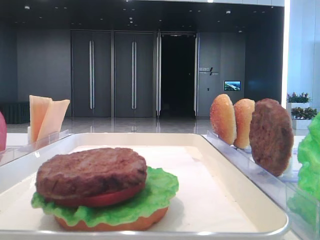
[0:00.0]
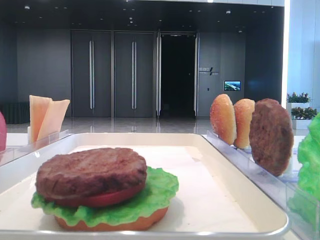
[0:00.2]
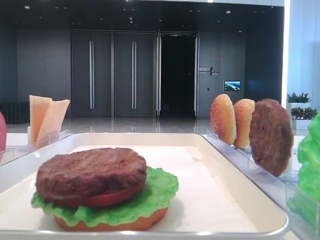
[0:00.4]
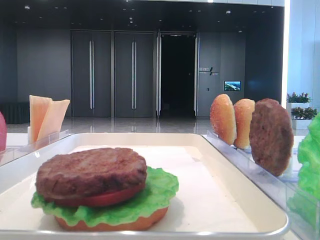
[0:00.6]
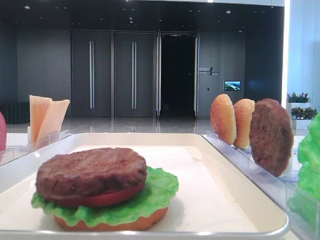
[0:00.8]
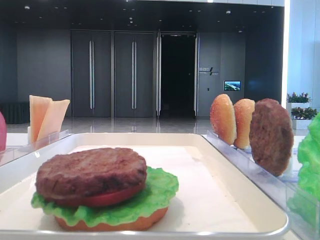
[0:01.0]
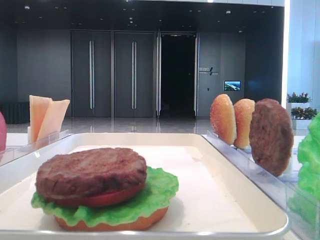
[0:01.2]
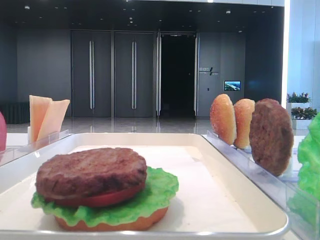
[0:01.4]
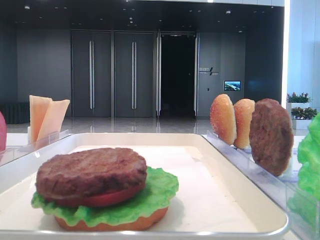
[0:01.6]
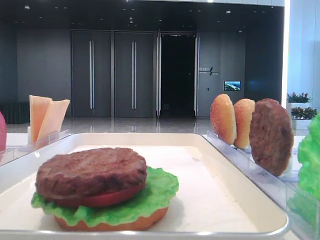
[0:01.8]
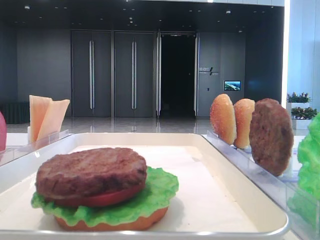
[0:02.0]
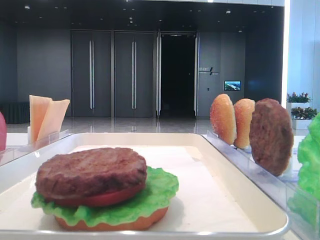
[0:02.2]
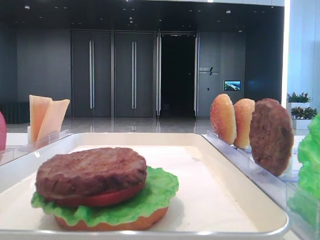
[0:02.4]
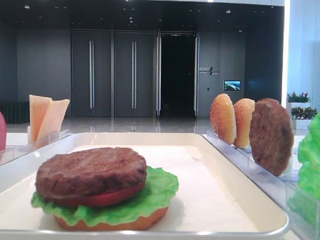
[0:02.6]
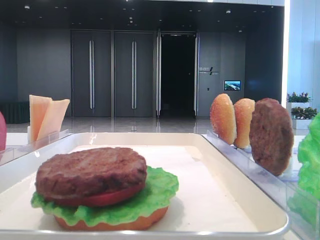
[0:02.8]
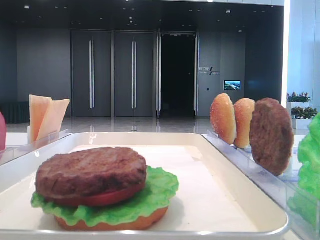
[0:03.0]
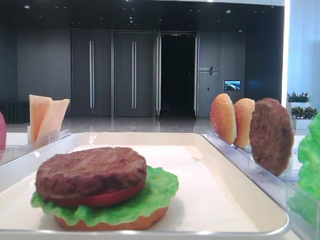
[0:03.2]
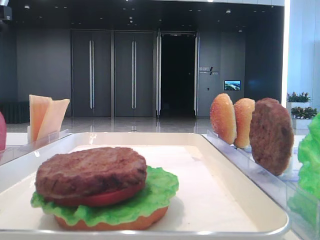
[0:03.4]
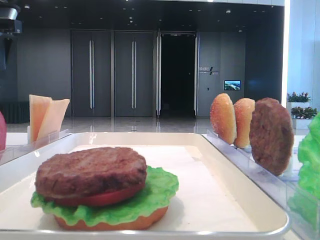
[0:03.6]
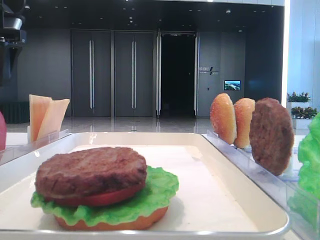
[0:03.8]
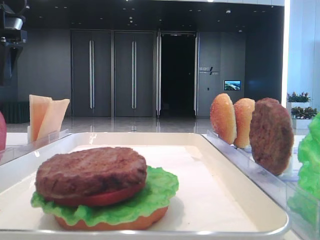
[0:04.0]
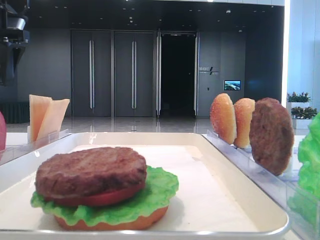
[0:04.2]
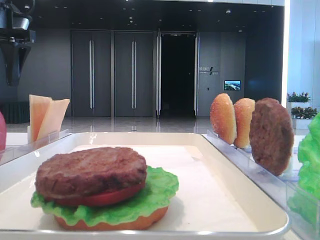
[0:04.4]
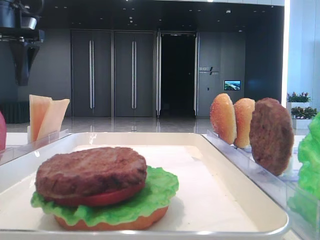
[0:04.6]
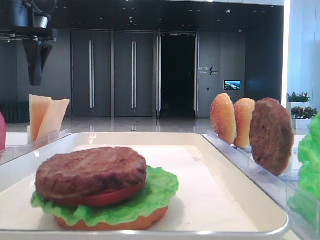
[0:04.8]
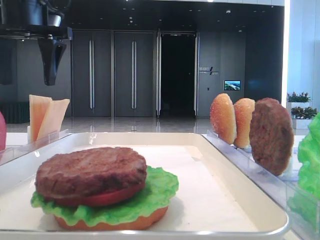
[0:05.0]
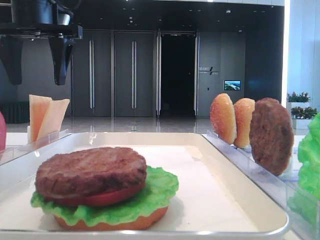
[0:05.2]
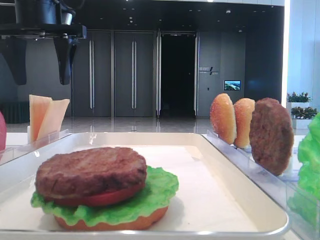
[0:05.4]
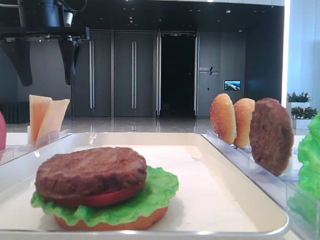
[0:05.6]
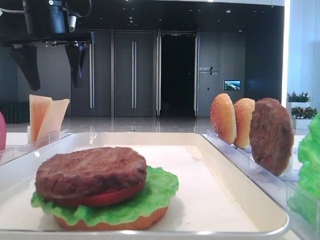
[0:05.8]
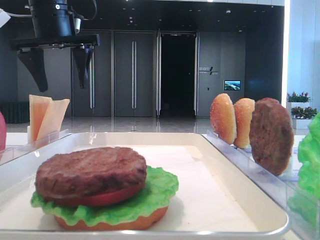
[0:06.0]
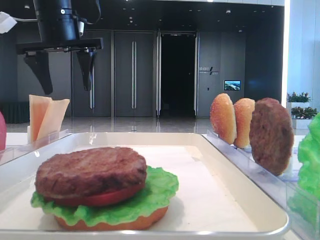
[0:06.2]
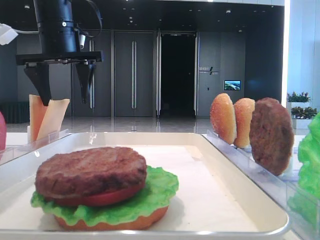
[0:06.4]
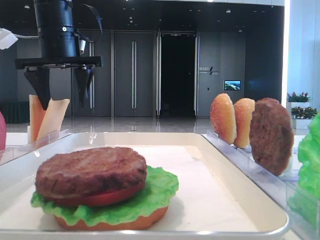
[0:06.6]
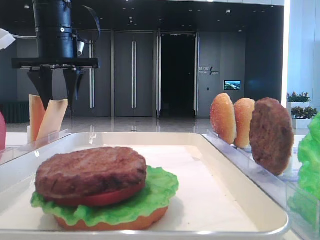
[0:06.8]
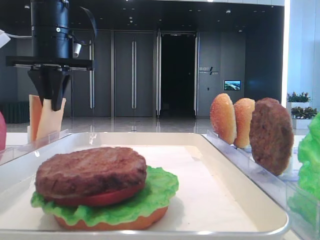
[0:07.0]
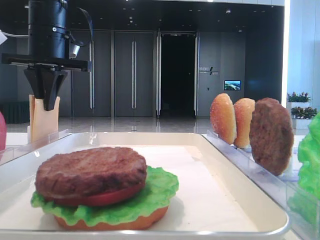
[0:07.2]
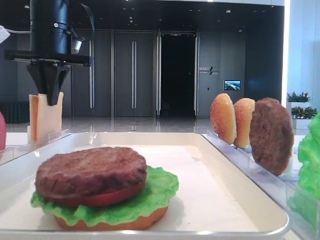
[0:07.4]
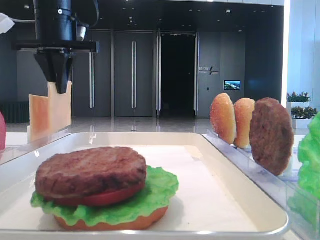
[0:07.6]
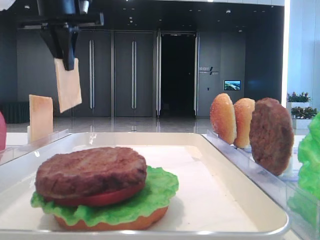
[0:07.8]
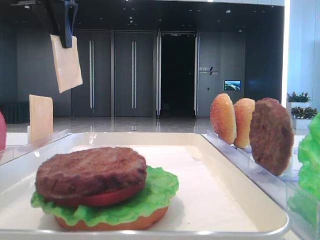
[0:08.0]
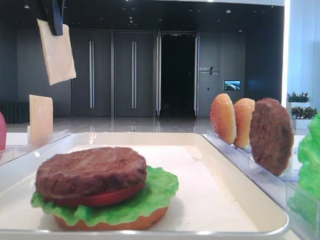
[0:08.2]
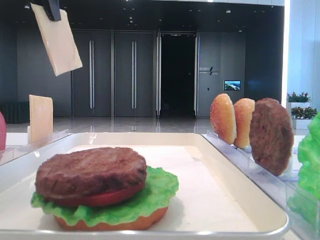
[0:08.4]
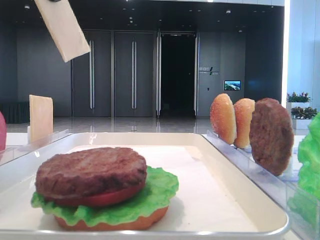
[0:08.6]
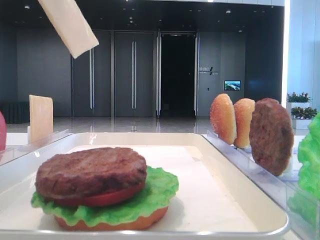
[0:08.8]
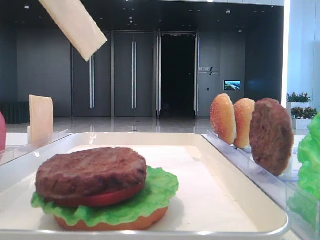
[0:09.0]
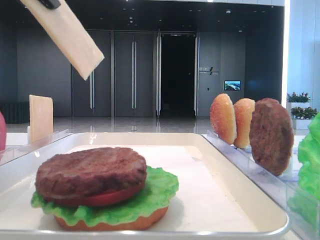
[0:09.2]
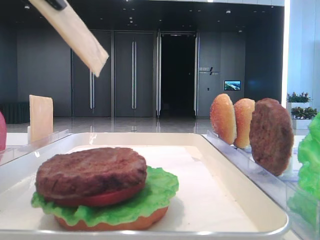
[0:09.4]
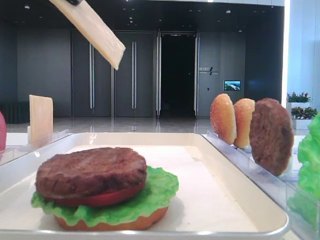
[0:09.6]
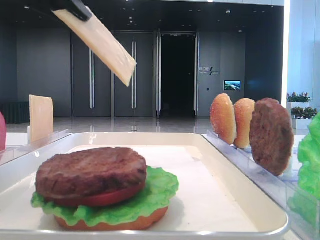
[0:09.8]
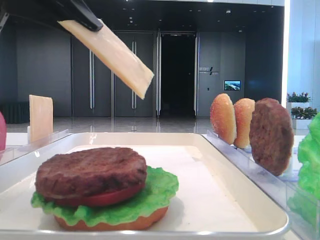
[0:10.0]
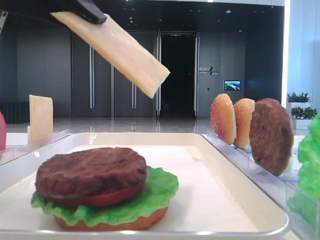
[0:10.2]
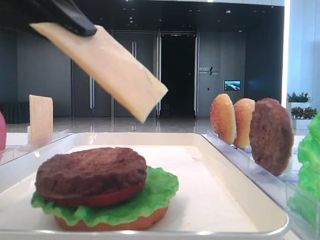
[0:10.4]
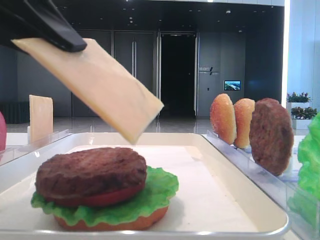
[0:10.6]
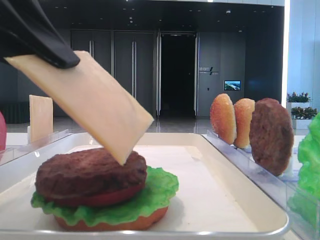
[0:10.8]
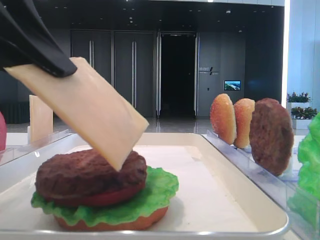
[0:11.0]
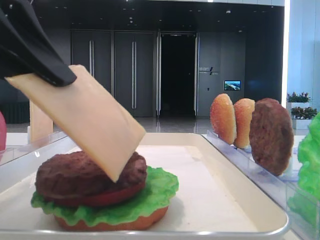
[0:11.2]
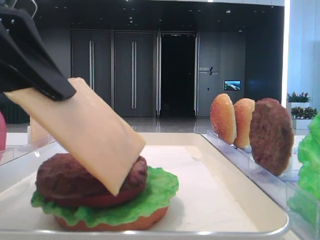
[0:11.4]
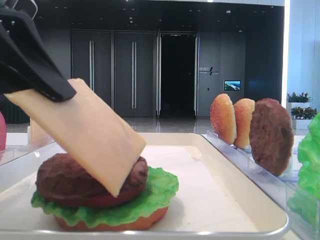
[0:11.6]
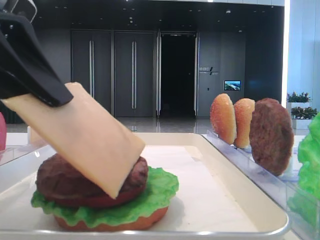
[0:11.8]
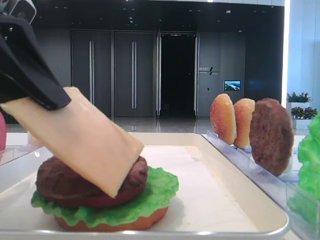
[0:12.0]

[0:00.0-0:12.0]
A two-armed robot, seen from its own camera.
Step, 0:00.0 to 0:06.8: Pick up the cheese slice with the left hand.
0:03.0 to 0:04.4: The left gripper is displaced forward by roughly 10 cm.
0:04.4 to 0:06.0: The left gripper is displaced to the right by approximately 10 cm.
0:06.0 to 0:07.6: The left gripper closes.
0:07.6 to 0:09.0: The left gripper shifts roughly 20 cm backward.
0:09.0 to 0:10.4: The left gripper shifts about 10 cm downward.

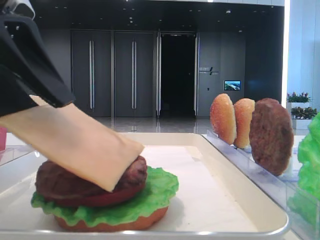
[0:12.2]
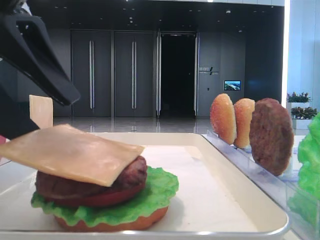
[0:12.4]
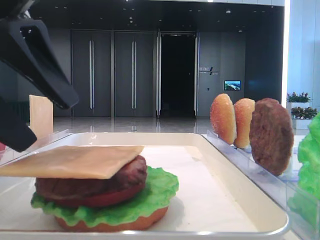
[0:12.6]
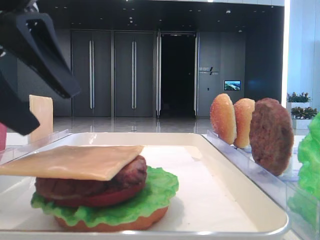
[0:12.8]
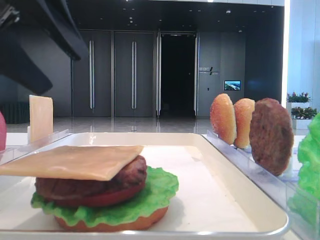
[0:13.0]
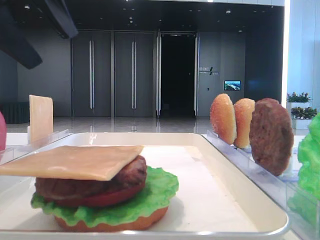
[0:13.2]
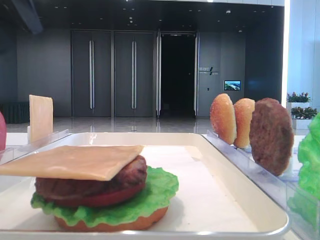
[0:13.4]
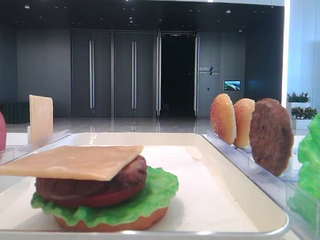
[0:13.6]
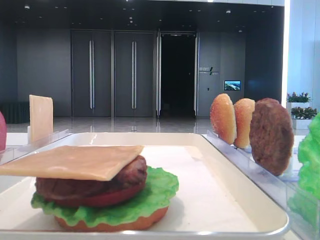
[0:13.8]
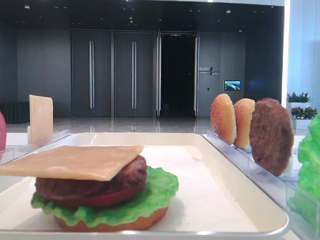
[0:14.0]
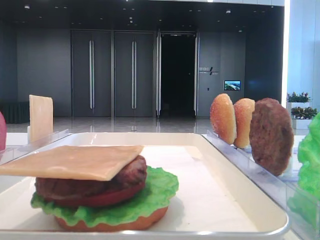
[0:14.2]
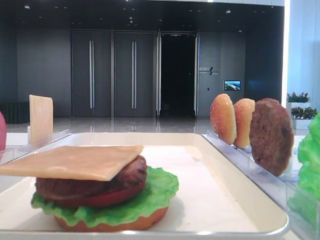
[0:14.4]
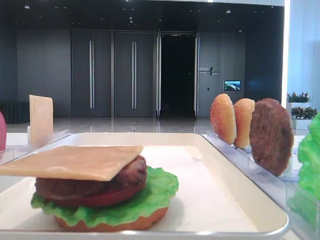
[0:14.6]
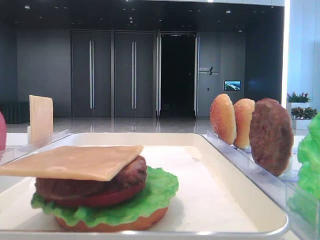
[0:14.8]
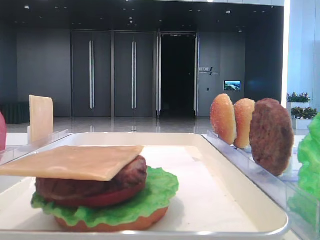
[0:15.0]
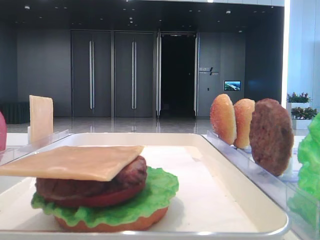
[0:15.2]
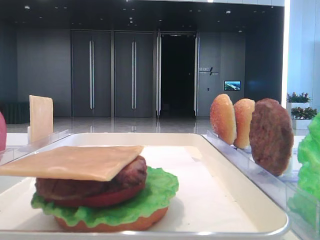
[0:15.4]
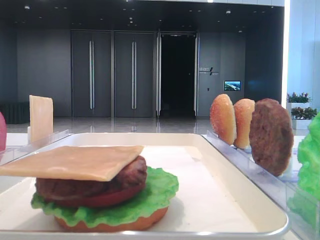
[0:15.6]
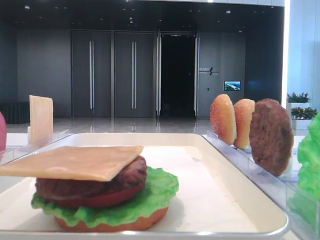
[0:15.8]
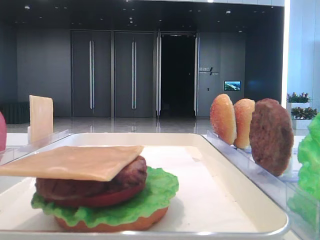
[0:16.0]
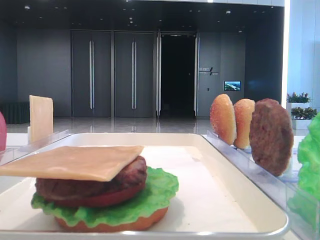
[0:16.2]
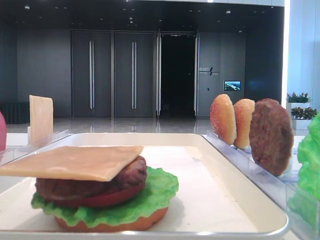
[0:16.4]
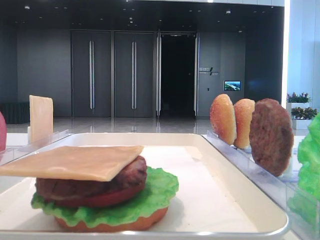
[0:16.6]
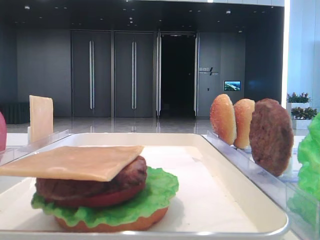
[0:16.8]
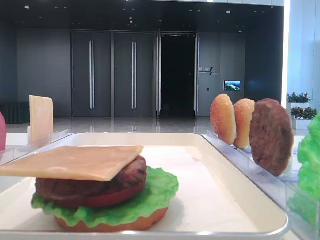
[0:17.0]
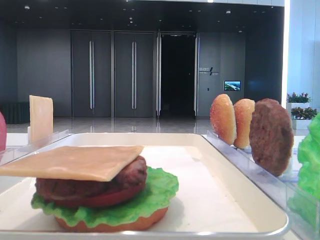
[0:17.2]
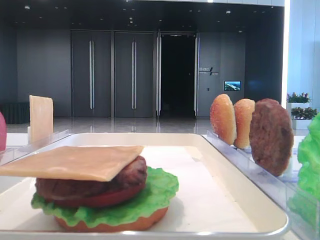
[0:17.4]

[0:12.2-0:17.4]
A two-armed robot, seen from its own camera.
0:12.2 to 0:14.0: The left gripper is displaced to the left and upward by approximately 20 cm, and opens its fingers.

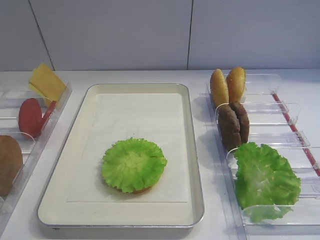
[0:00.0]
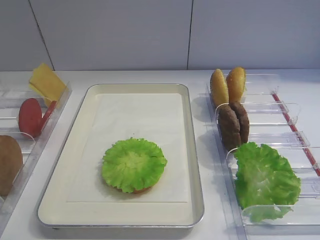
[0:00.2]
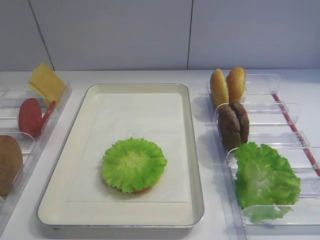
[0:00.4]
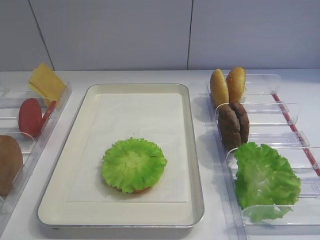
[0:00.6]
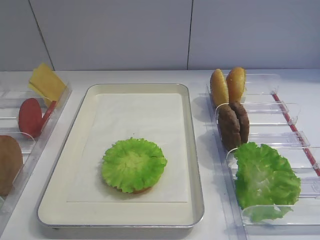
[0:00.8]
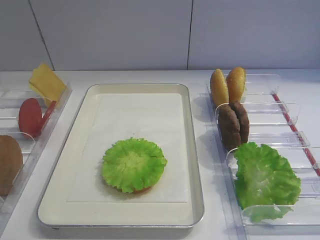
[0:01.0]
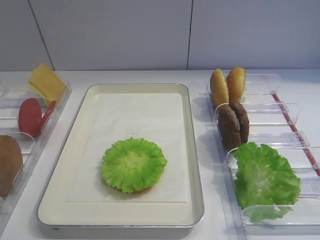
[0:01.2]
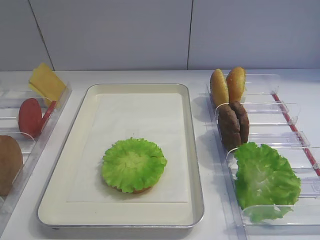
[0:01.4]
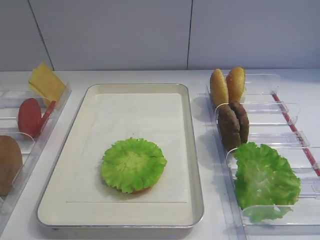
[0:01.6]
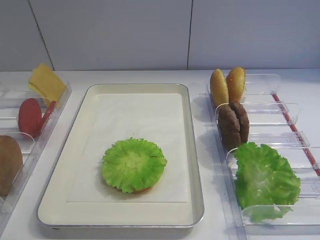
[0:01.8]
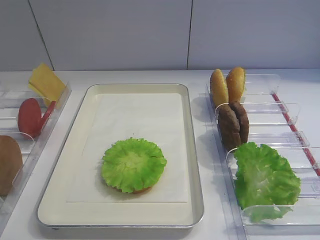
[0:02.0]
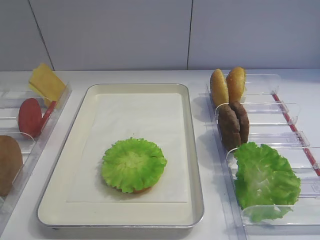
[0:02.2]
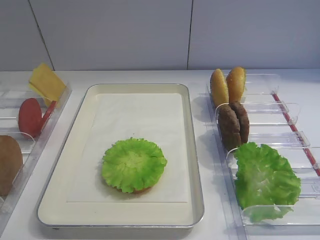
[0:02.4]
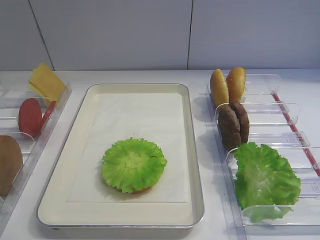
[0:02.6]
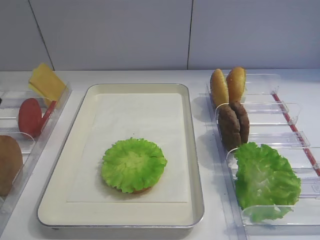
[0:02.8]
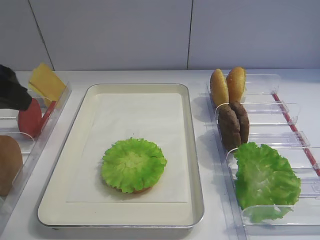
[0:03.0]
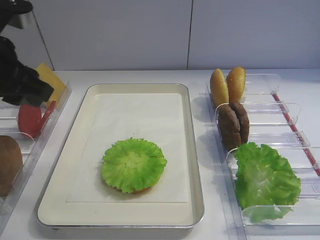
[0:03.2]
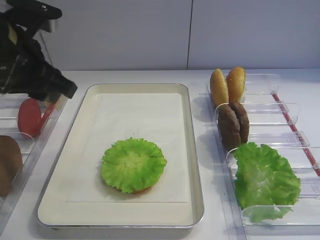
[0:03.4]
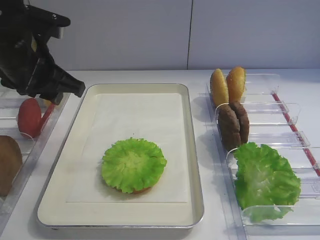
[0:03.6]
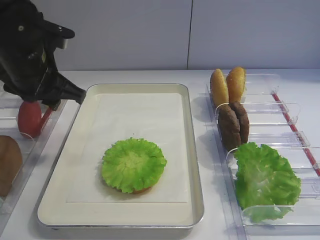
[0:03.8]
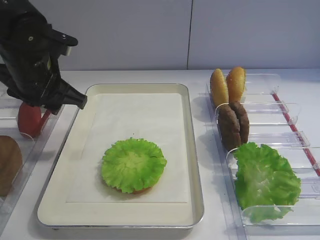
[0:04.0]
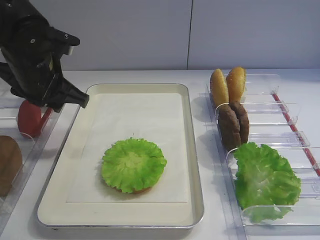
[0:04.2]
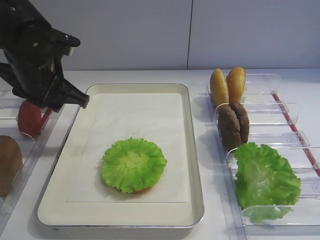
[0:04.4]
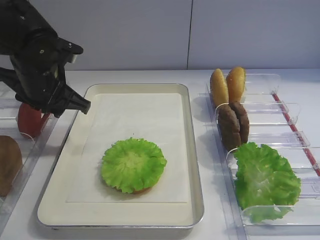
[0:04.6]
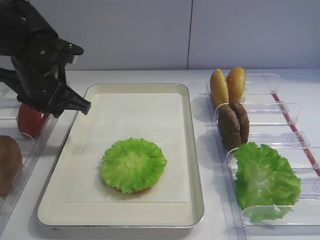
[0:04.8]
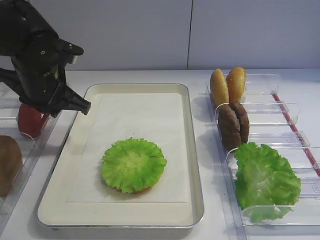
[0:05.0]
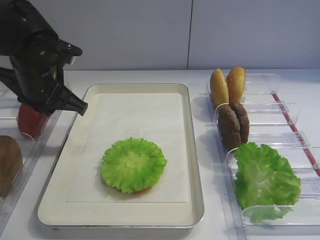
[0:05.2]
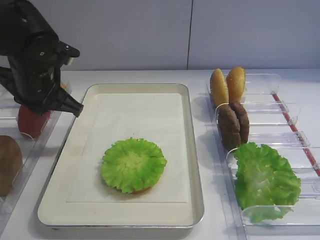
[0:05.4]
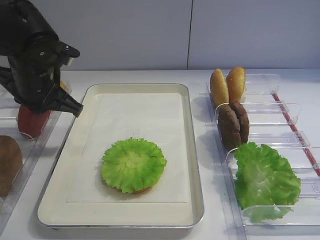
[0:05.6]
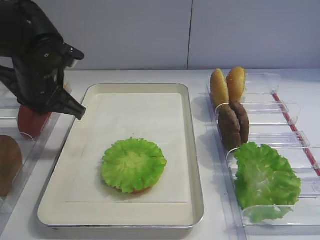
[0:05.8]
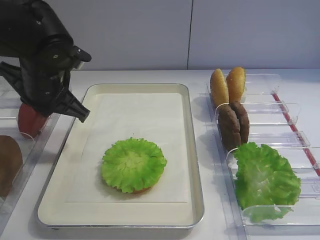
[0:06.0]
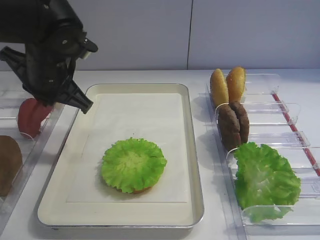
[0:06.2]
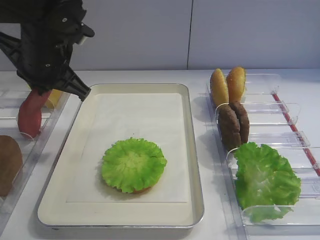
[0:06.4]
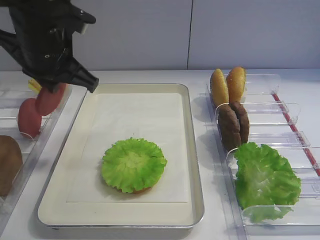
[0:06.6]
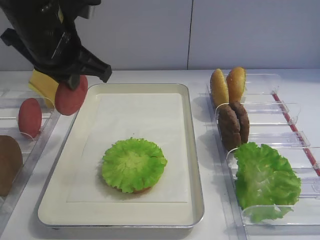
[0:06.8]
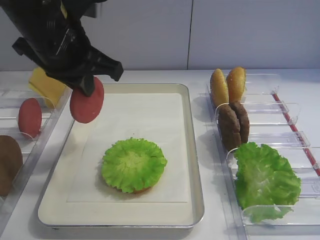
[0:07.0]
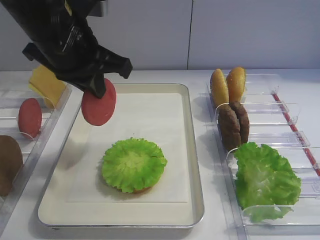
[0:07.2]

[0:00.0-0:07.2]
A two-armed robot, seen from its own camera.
Step, 0:00.0 to 0:06.4: Pick up the tomato slice with the left gripper.
0:02.8 to 0:04.4: The left gripper heads forward, downward and to the right, covering about 20 cm.
0:04.4 to 0:05.8: The left gripper closes up.
0:05.8 to 0:07.2: The left gripper heads upward and to the right, covering approximately 10 cm.
